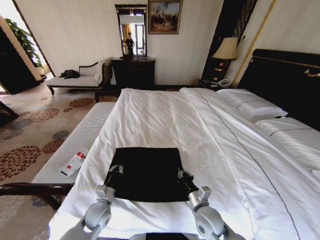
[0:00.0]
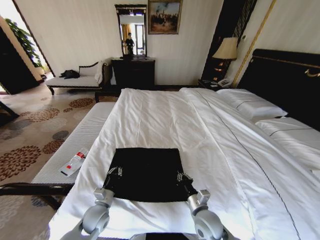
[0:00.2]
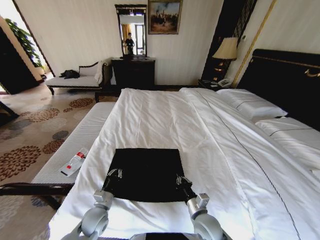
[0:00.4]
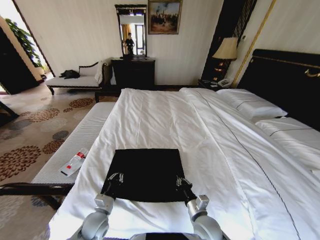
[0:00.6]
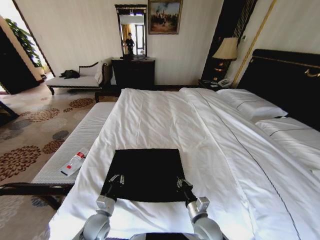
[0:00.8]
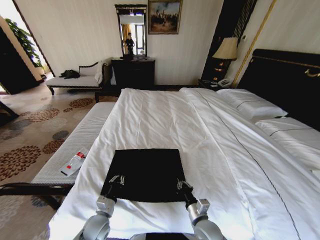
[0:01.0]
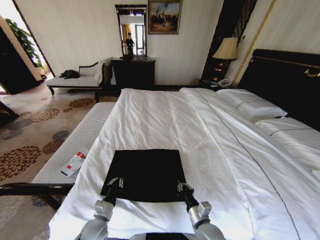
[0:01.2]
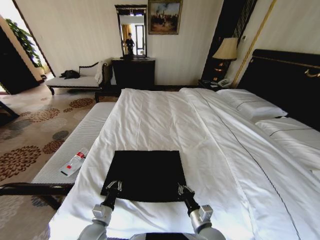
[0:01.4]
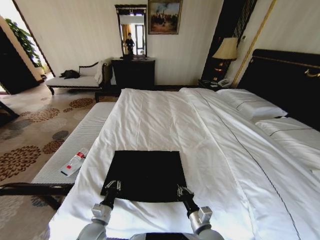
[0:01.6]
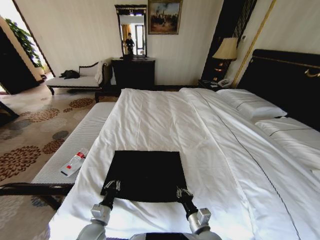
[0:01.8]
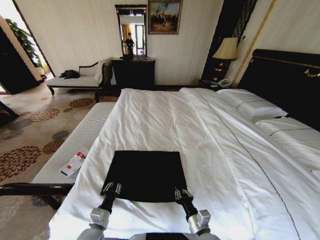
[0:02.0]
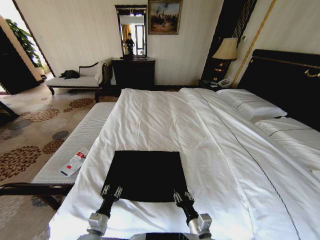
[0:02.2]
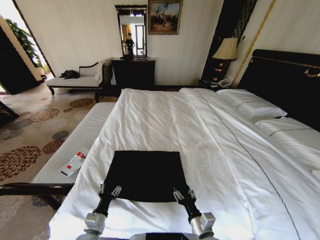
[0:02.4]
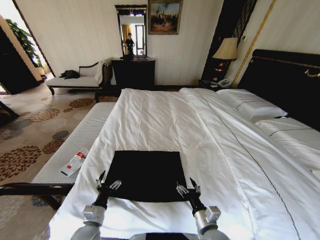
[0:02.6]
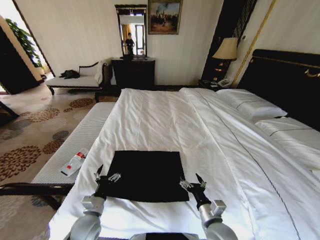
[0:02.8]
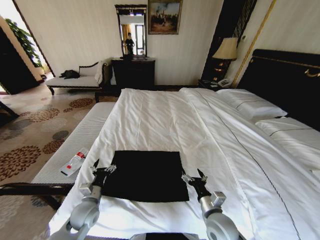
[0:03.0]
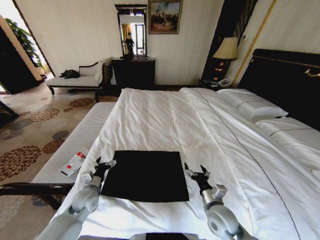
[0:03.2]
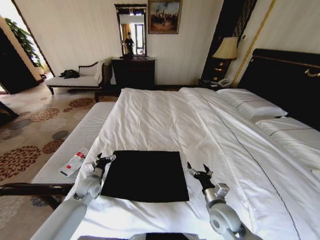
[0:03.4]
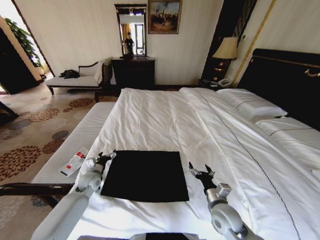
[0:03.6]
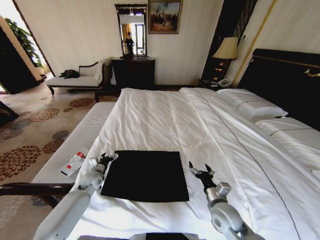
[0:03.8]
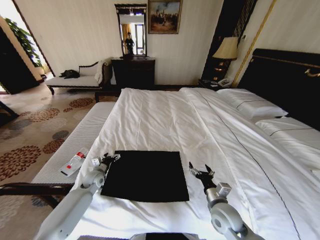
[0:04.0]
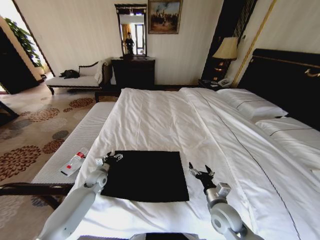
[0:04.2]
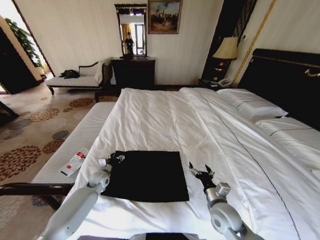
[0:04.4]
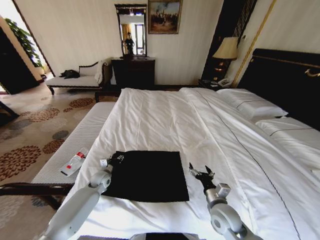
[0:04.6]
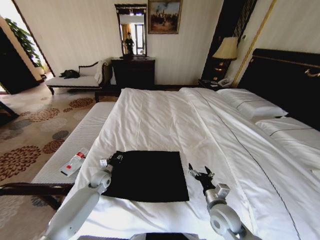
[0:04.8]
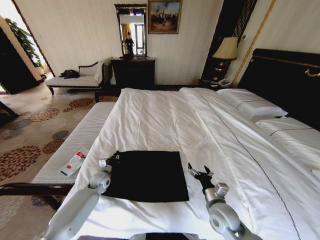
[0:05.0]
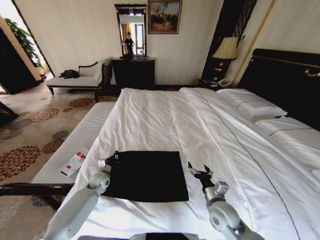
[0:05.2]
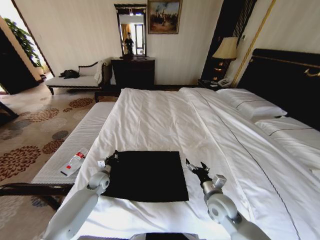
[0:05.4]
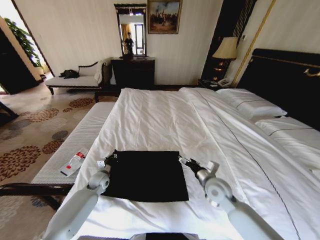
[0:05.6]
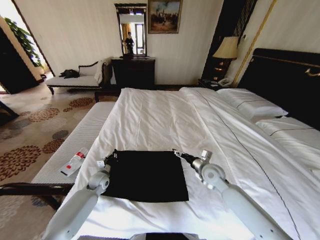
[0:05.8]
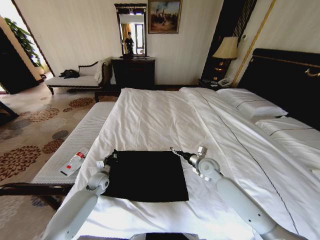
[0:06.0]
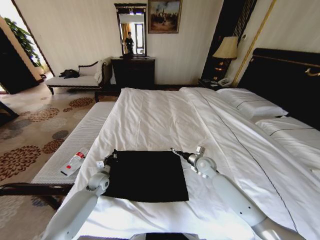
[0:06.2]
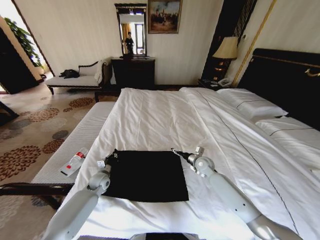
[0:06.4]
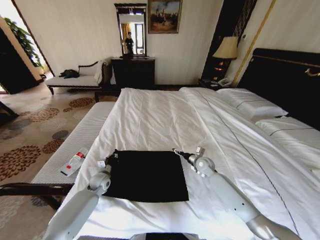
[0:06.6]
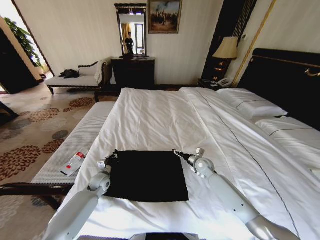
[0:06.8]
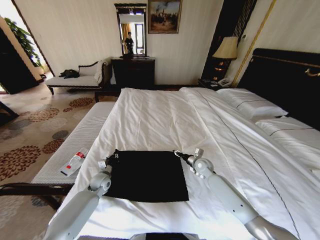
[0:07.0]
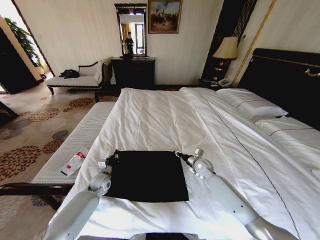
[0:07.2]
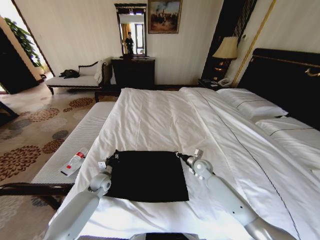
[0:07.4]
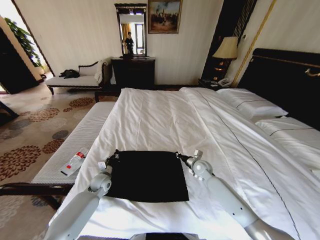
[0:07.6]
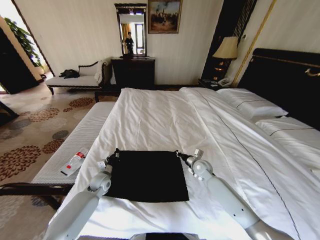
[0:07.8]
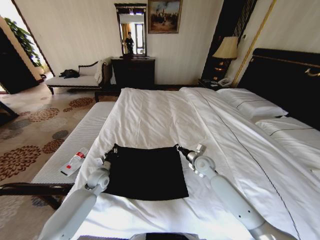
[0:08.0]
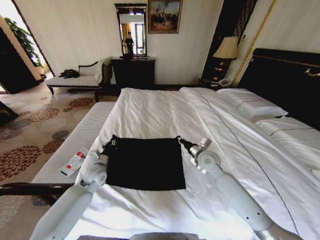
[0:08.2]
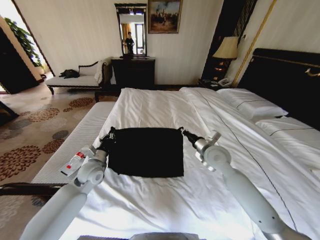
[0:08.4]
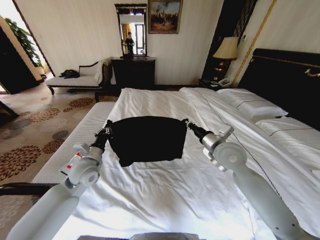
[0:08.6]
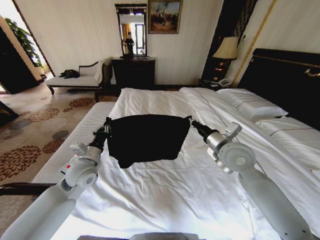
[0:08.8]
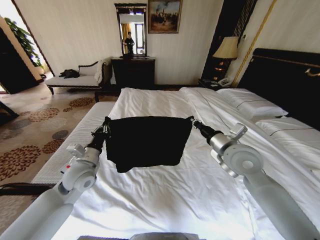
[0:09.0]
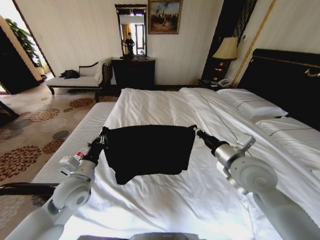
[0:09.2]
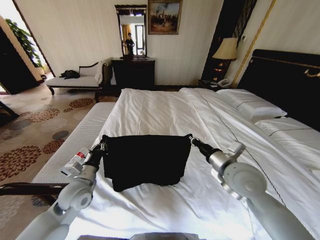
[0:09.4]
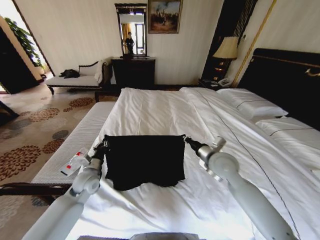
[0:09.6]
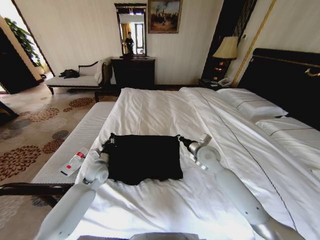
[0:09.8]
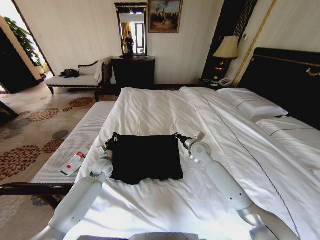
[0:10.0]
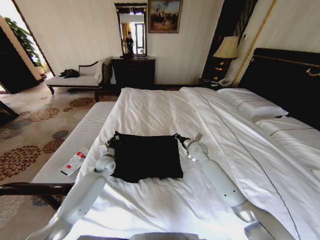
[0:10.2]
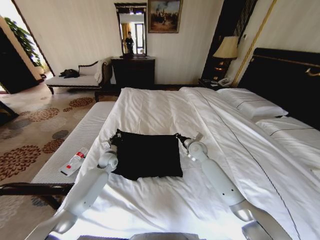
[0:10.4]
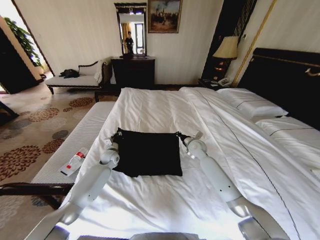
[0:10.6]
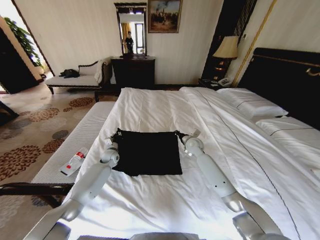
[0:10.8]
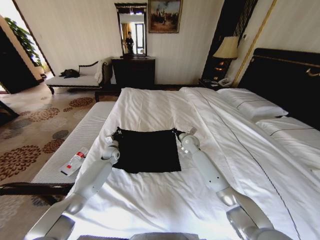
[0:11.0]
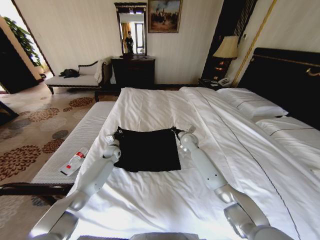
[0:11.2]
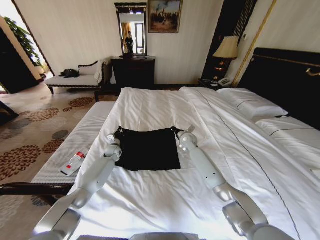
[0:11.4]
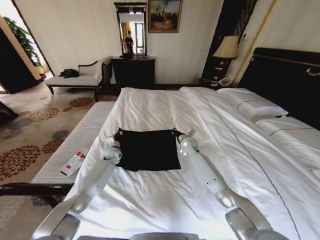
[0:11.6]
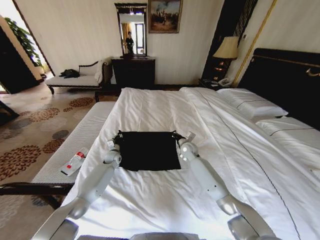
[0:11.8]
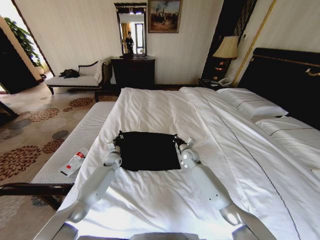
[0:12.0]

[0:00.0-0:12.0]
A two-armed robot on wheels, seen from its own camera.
Task of the whole recording: Fold the clothes on the bed.
0:00.0 to 0:01.6: Both grippers travel together backward, some 5 cm.
0:01.6 to 0:03.0: The right gripper ends up some 5 cm from where it was, and opens up, while the left gripper travels forward and upward by some 10 cm, and opens up.
0:03.0 to 0:04.4: The left gripper moves forward, some 15 cm.
0:04.4 to 0:06.0: The right gripper moves forward, roughly 20 cm. The left gripper closes its fingers.
0:06.0 to 0:07.6: The right gripper shifts some 5 cm downward, and closes.
0:07.6 to 0:09.0: The right gripper heads upward and backward, covering about 30 cm. Meanwhile the left gripper moves upward, some 20 cm.
0:09.0 to 0:10.4: Both grippers travel together forward and downward, some 25 cm.
0:10.4 to 0:12.0: The left gripper shifts by about 5 cm. Meanwhile the right gripper heads downward, covering roughly 5 cm.

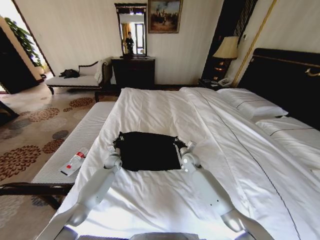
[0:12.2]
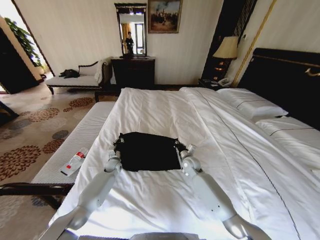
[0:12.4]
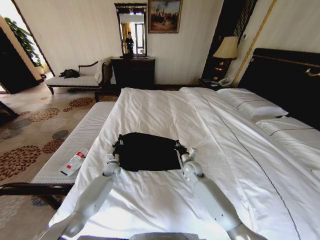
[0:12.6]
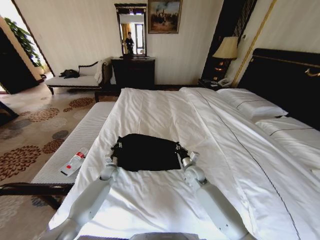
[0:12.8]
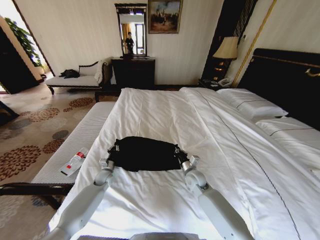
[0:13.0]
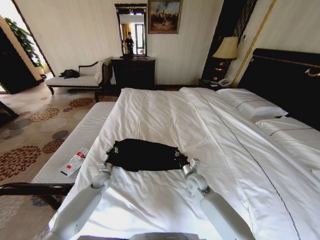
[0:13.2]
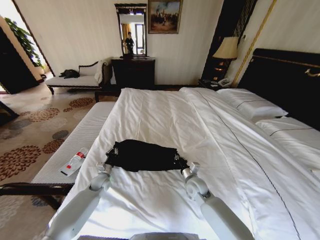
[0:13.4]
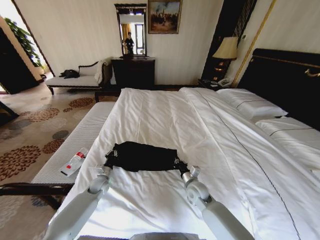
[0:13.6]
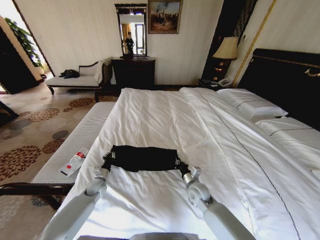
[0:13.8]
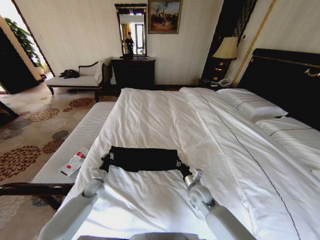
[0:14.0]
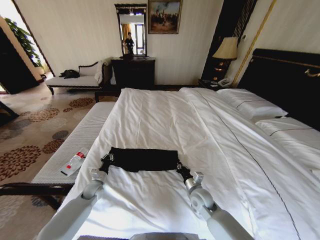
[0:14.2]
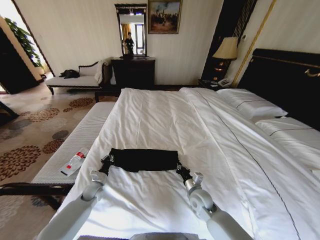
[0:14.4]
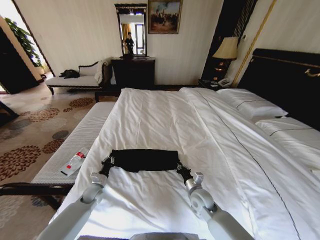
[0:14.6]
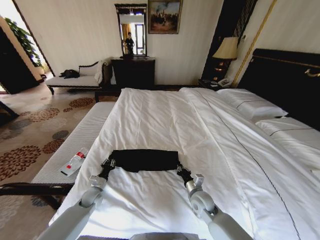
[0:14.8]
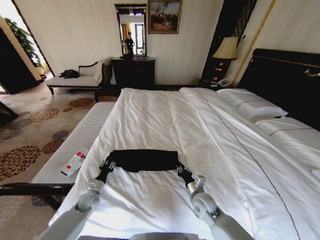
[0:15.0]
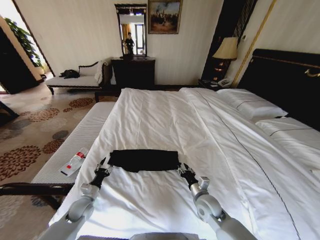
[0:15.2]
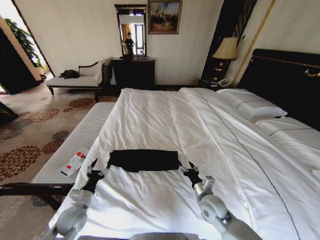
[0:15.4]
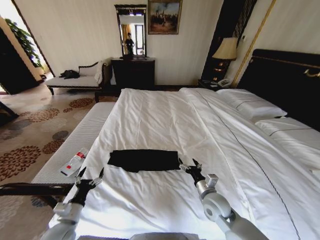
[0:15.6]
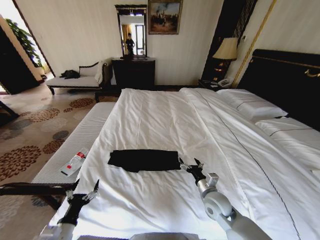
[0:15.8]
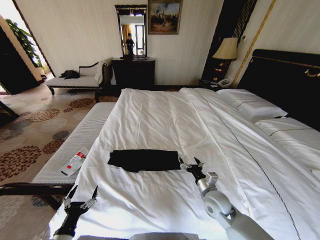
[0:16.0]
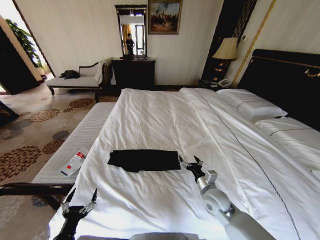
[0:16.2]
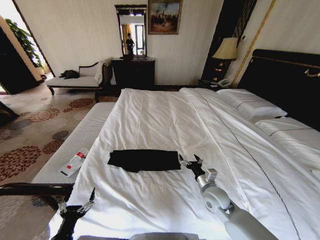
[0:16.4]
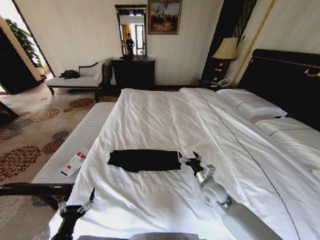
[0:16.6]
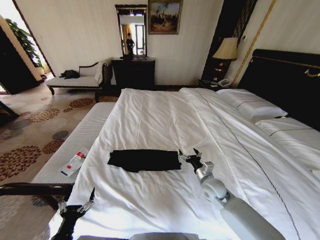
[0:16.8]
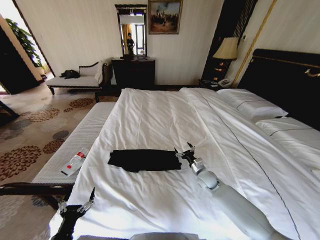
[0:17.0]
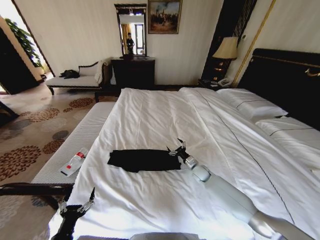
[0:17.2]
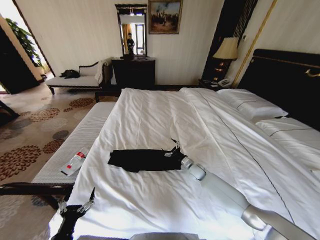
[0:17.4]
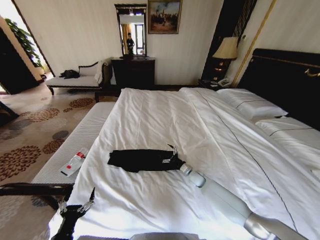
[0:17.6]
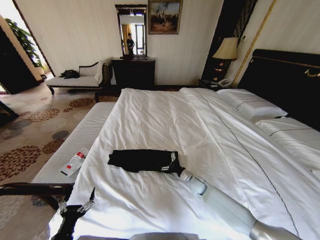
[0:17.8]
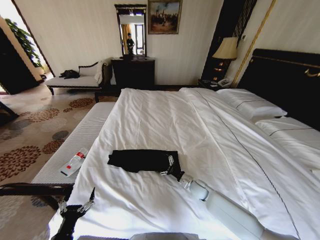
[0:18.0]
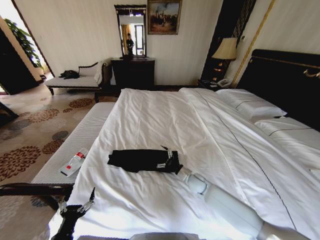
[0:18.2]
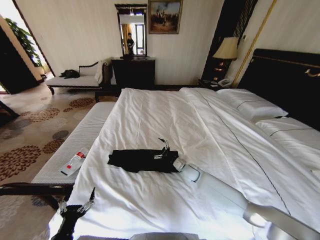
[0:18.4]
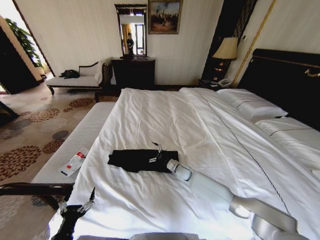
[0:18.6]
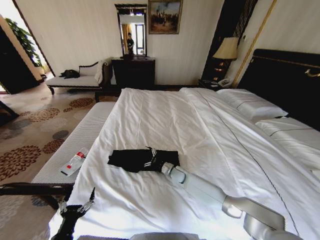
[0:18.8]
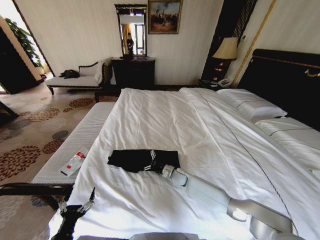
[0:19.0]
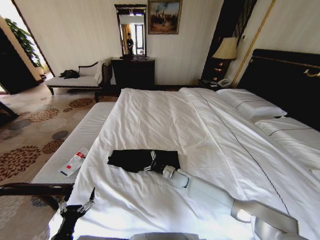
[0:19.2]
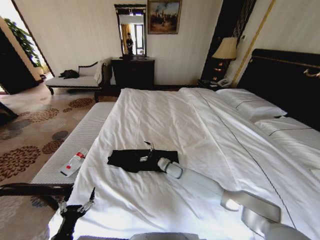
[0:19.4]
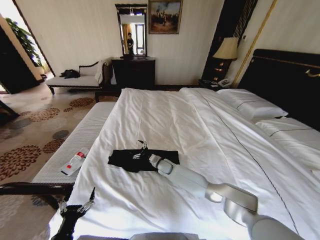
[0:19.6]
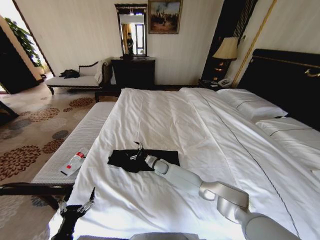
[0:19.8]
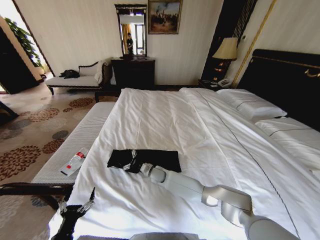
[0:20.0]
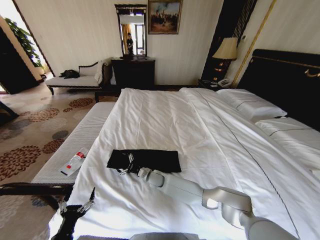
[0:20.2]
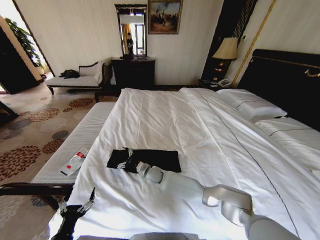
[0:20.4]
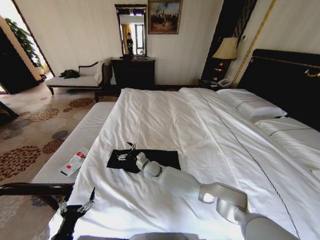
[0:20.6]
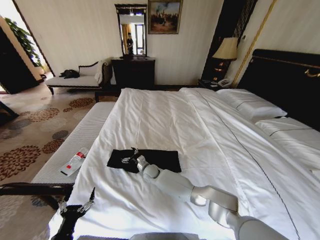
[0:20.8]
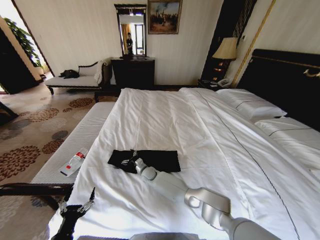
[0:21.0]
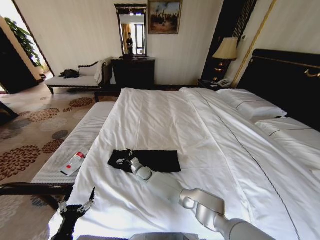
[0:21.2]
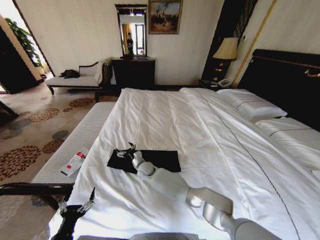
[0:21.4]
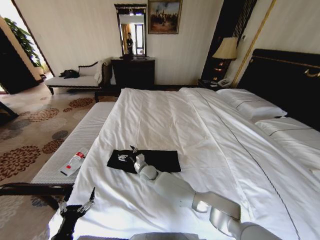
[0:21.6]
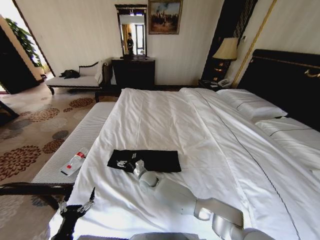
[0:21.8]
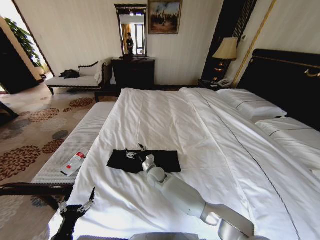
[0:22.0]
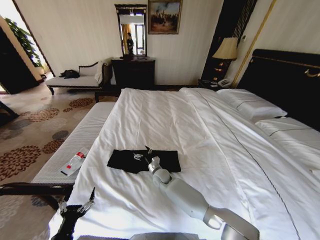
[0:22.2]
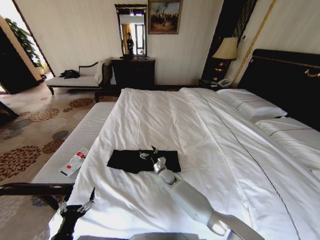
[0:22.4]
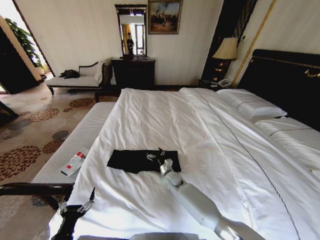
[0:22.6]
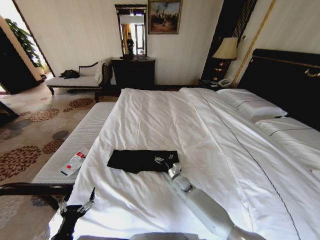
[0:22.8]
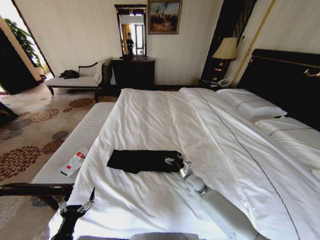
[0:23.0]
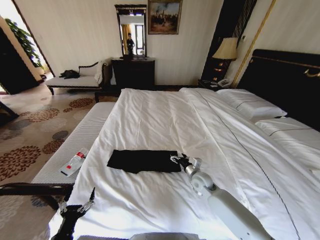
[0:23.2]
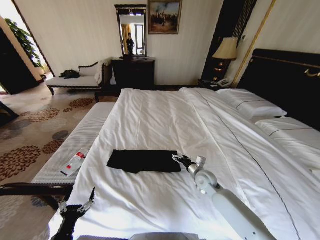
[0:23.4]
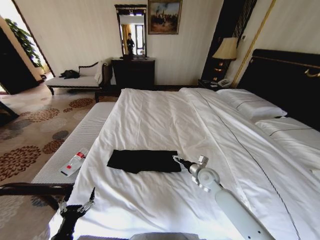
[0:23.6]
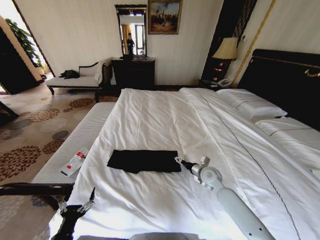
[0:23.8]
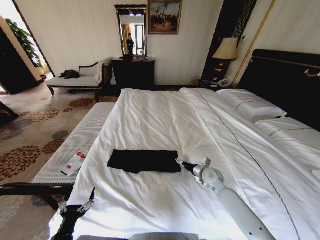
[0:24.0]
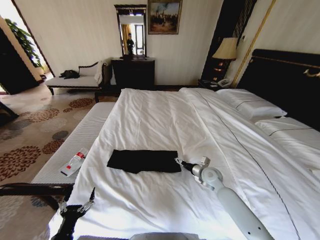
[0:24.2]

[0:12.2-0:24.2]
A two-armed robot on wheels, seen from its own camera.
Task of the whole recording: Fold the clothes on the bed.
0:12.2 to 0:13.8: The left gripper travels backward and to the left by about 15 cm. Meanwhile the right gripper travels backward by about 15 cm.
0:13.8 to 0:15.2: The left gripper goes some 10 cm backward, and opens, while the right gripper shifts some 5 cm backward, and opens.
0:15.2 to 0:16.6: The right gripper changes place by some 5 cm, and opens up, while the left gripper goes approximately 20 cm backward, and opens.
0:16.6 to 0:18.2: The right gripper travels forward and downward by approximately 10 cm.
0:18.2 to 0:19.8: The right gripper moves to the left and forward, roughly 20 cm.
0:19.8 to 0:21.2: The right gripper heads to the left, covering some 10 cm.
0:21.2 to 0:22.6: The right gripper travels to the right by about 15 cm.
0:22.6 to 0:24.2: The right gripper goes about 20 cm to the right and upward.
